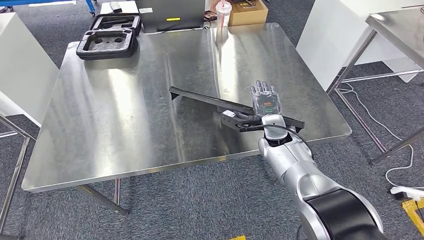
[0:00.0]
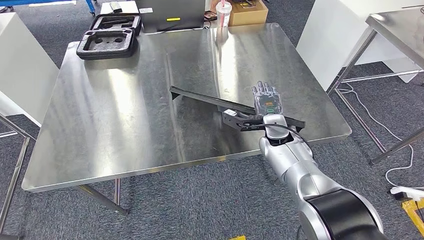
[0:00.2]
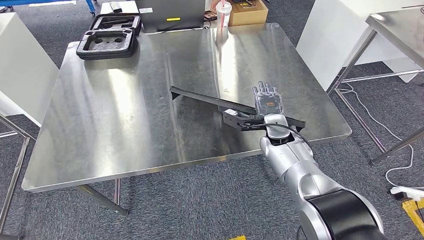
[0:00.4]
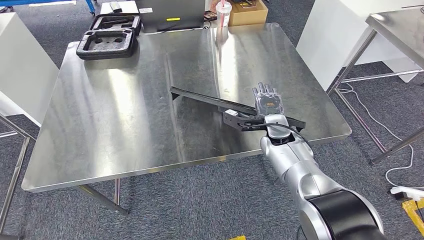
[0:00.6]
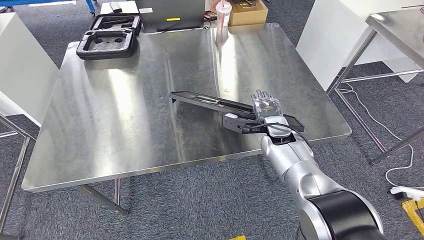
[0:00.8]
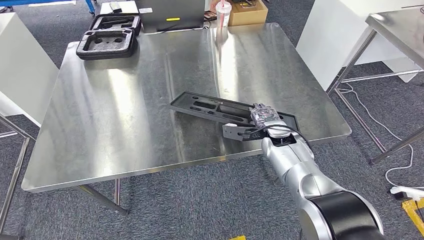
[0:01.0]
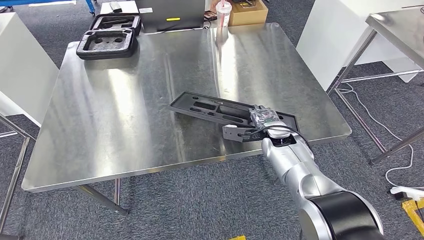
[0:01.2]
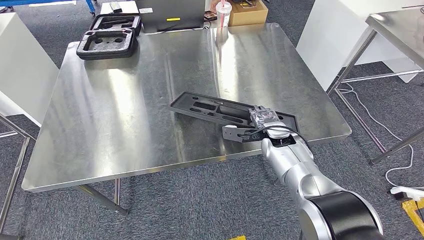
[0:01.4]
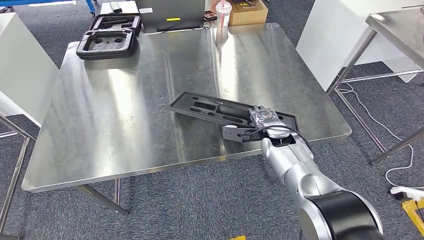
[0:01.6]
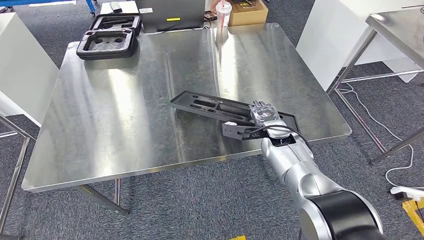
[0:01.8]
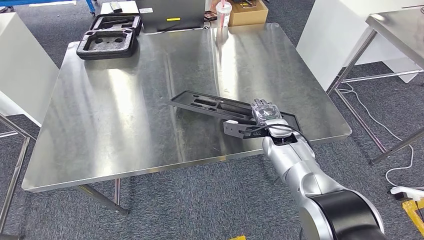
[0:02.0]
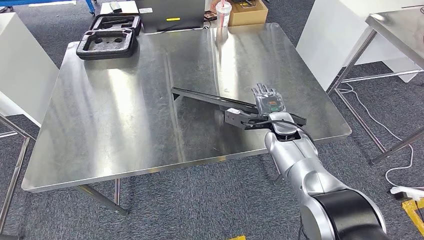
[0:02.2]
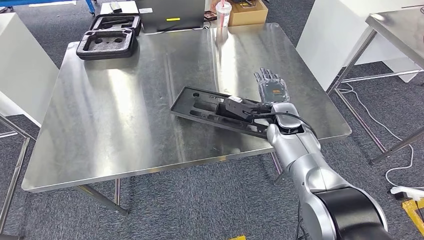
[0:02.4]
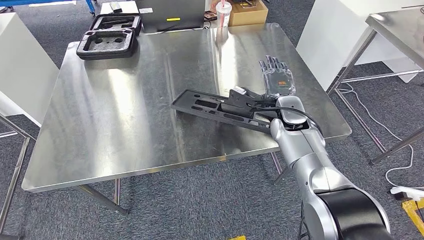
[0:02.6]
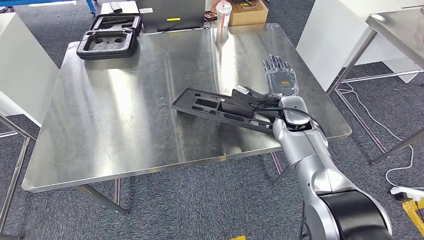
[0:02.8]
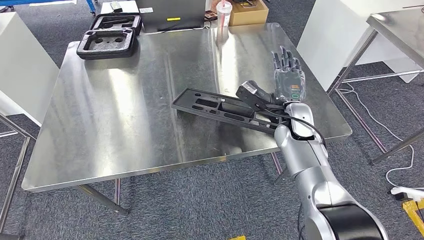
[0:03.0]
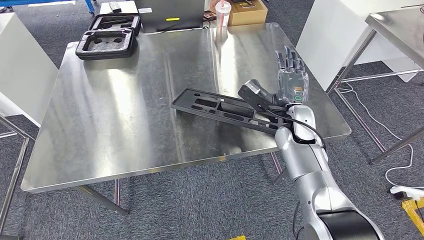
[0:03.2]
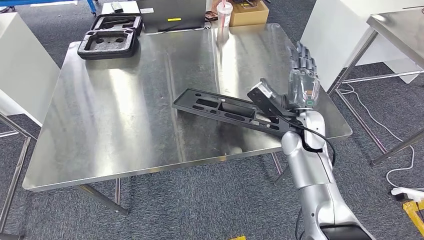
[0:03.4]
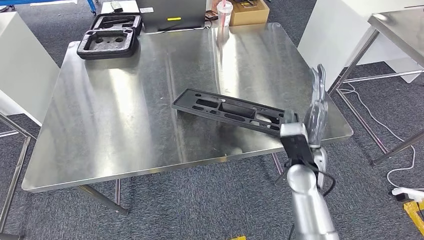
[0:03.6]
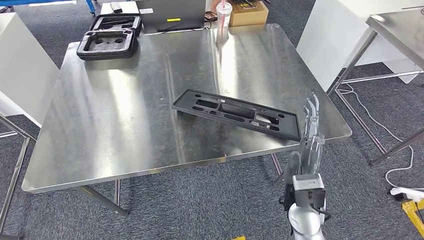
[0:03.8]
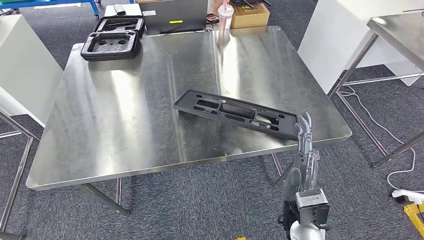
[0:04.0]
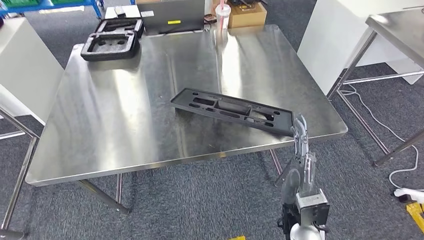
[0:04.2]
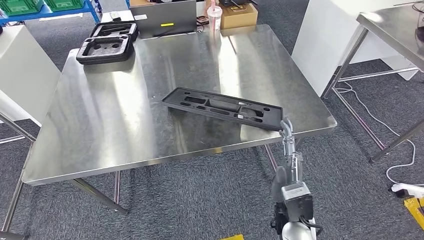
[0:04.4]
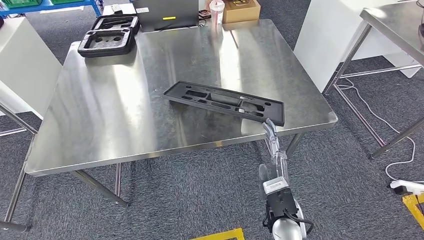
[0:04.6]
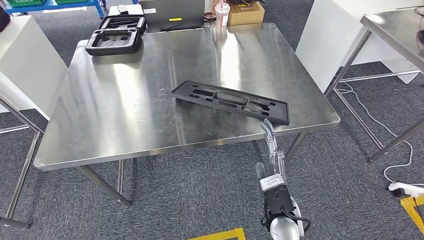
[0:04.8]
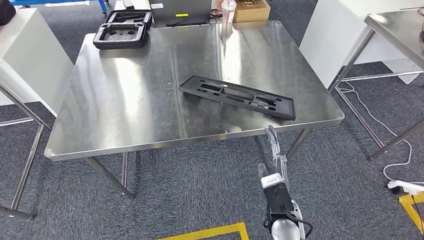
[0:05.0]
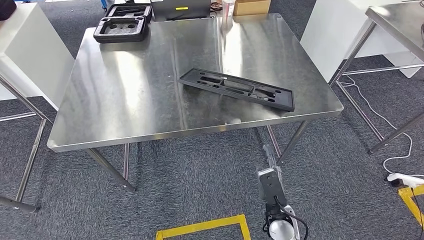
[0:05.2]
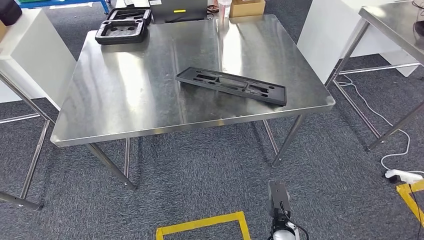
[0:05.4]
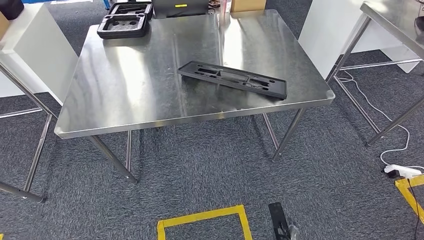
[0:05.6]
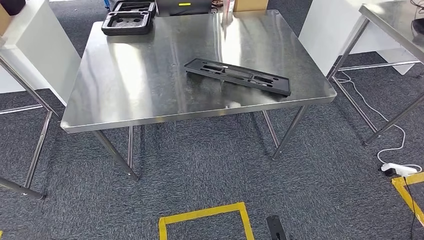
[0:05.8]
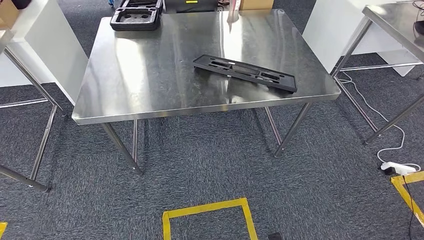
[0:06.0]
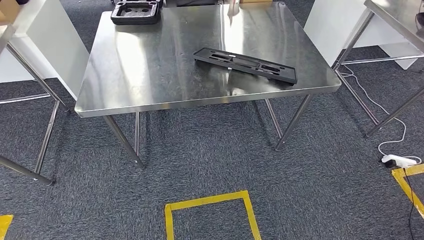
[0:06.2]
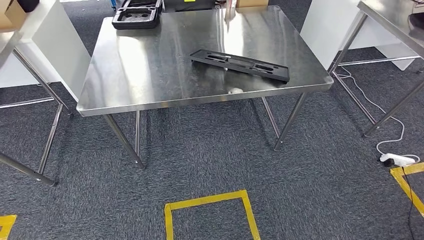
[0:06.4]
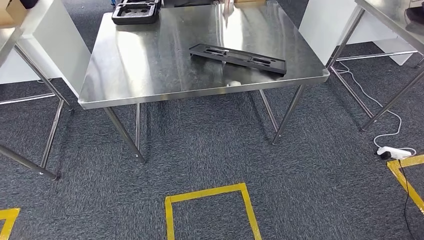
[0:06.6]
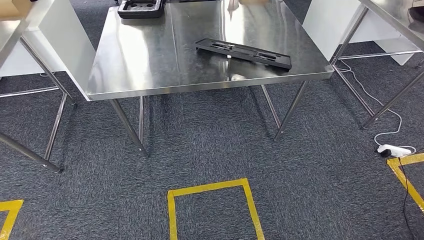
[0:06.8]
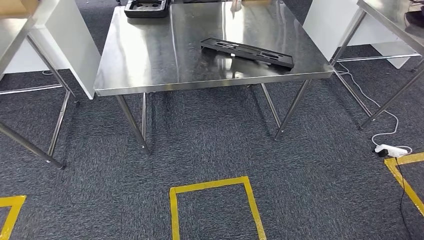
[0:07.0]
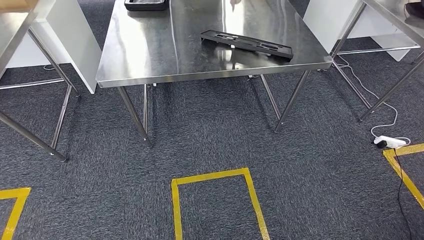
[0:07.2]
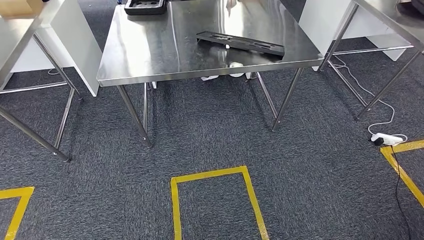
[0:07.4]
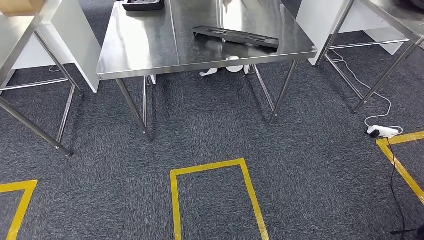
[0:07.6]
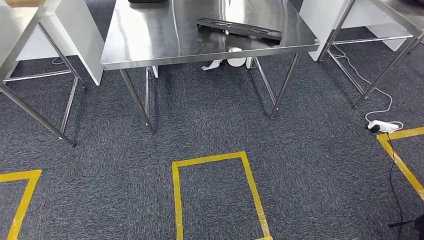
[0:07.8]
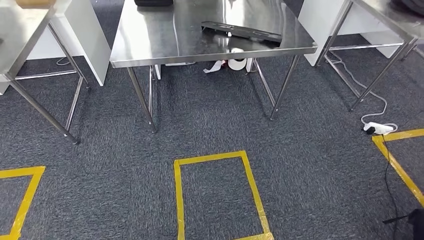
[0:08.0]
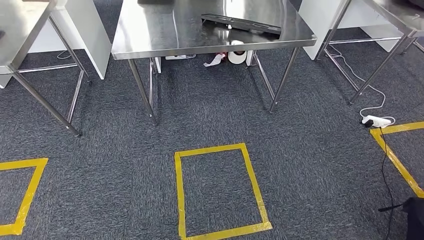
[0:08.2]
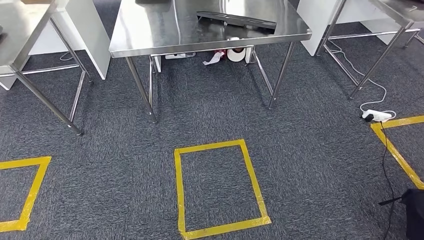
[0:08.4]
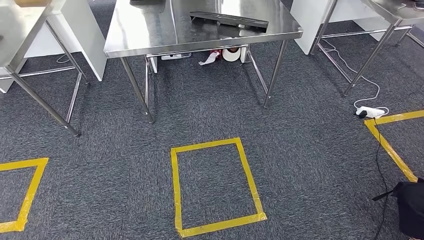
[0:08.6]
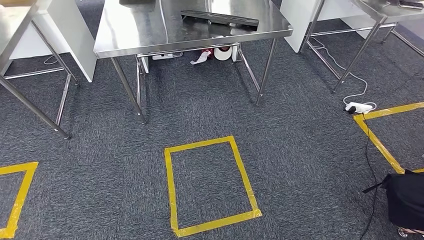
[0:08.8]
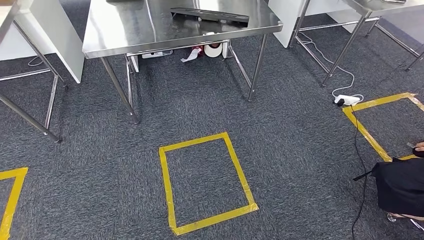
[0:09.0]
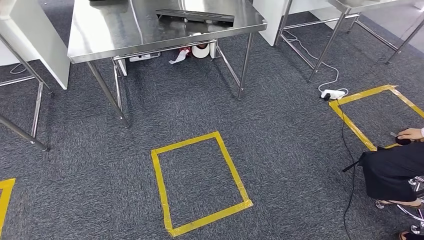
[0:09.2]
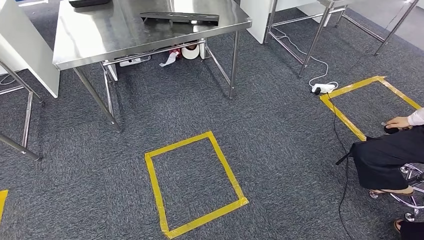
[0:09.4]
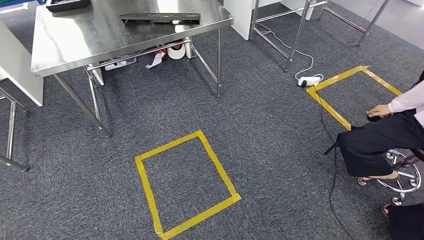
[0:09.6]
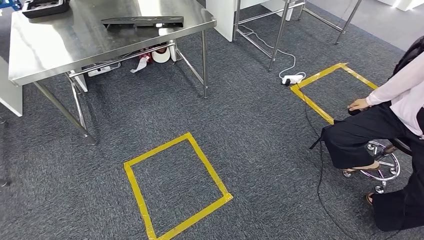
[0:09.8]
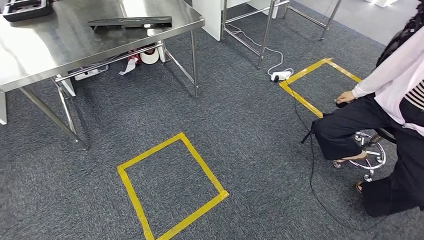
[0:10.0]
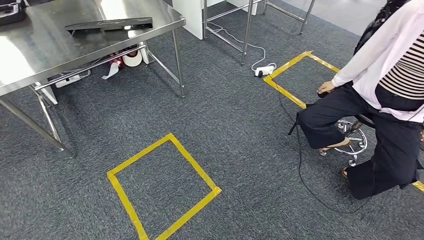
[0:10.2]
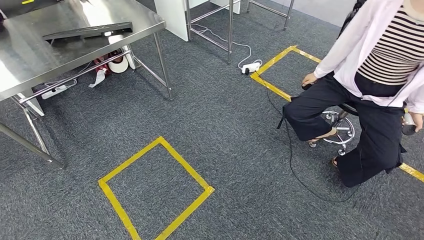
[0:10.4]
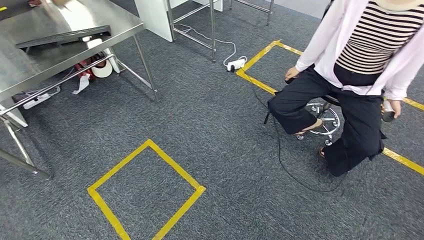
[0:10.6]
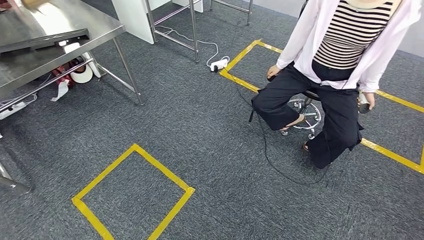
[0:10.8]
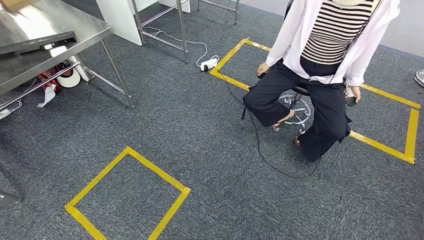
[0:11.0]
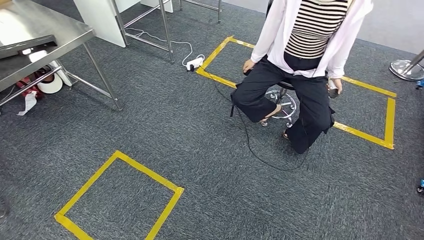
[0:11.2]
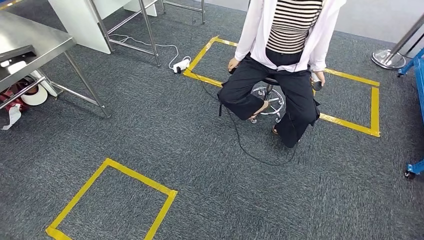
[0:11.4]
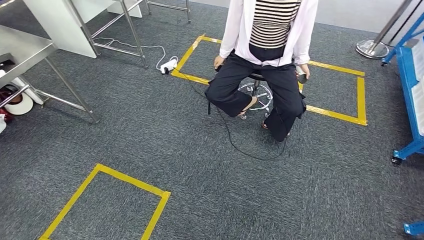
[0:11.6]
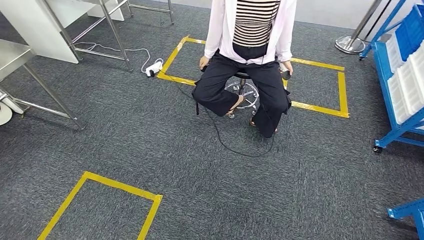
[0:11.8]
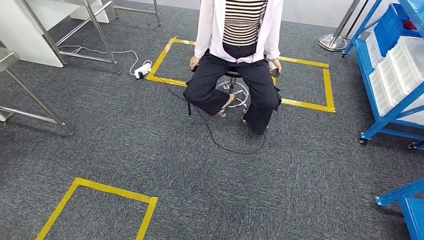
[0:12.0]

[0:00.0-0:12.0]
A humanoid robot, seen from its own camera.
Step, 0:00.0 to 0:07.4: Insert the large material into the corresponding slot on the workbench.
0:01.6 to 0:03.0: The right hand heads upward, covering some 5 cm.

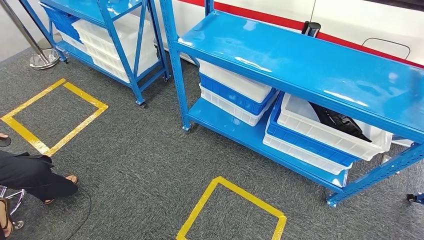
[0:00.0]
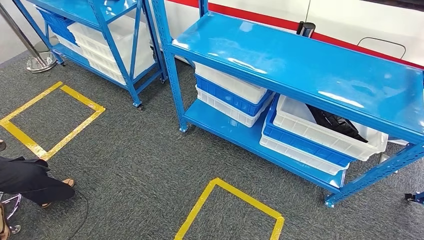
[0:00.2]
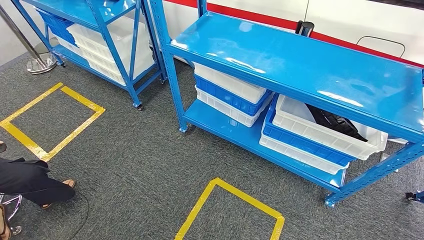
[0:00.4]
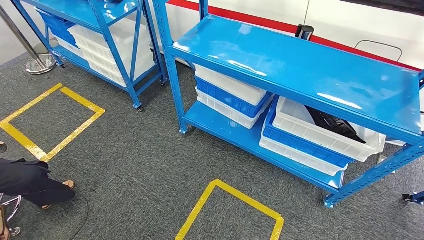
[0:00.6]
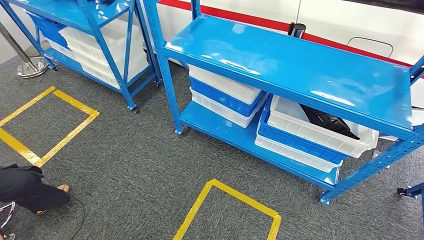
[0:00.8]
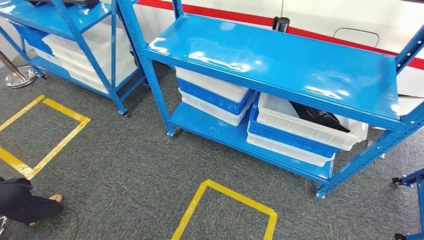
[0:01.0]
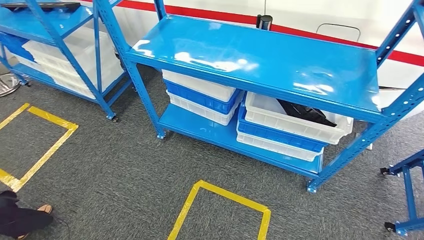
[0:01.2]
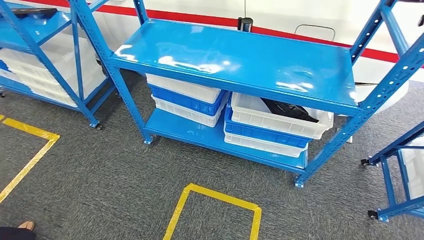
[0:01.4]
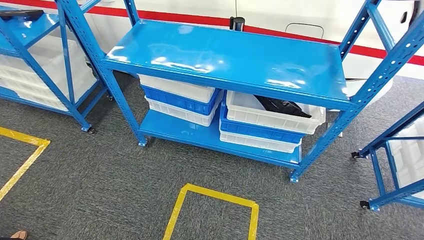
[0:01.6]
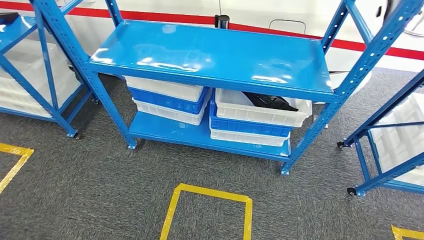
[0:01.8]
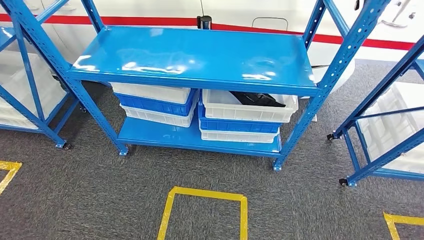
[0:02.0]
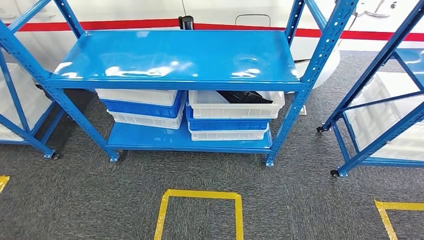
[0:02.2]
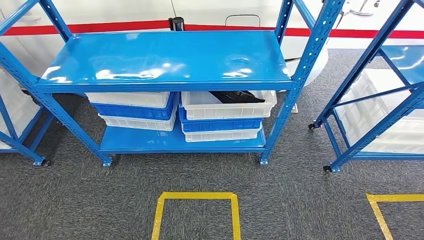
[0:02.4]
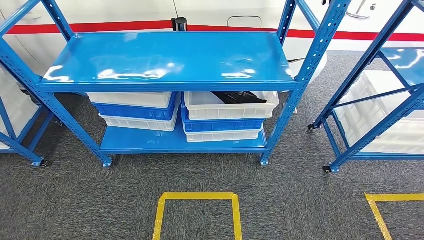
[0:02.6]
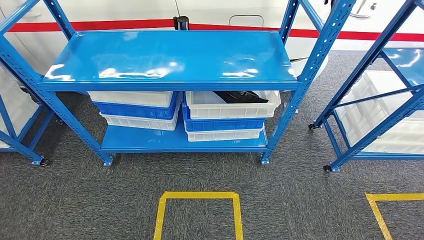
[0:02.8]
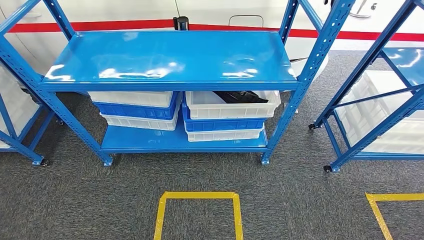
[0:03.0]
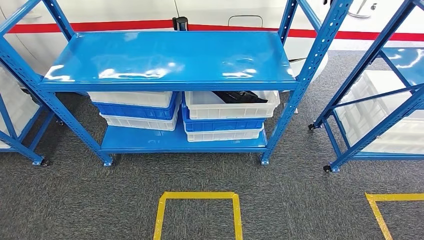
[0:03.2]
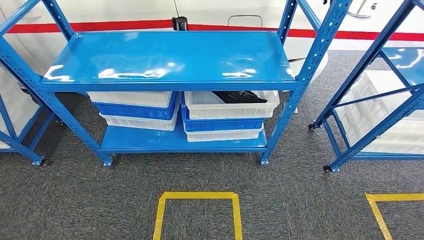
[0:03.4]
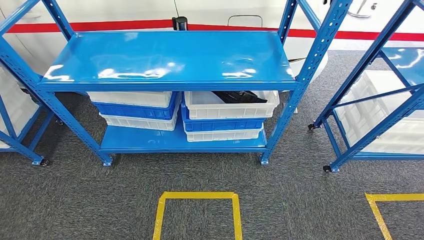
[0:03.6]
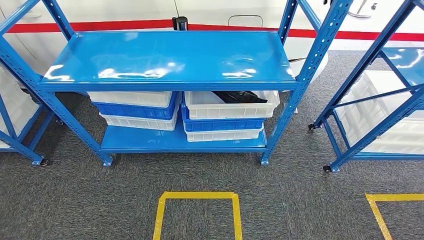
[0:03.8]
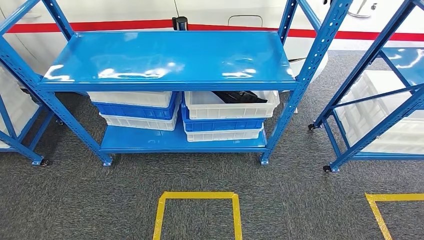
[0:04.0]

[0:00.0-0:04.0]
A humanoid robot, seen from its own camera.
Step, 0:00.0 to 0:04.0: Return to the initial position at the shelf.
0:02.6 to 0:04.0: The hands move only a little.
